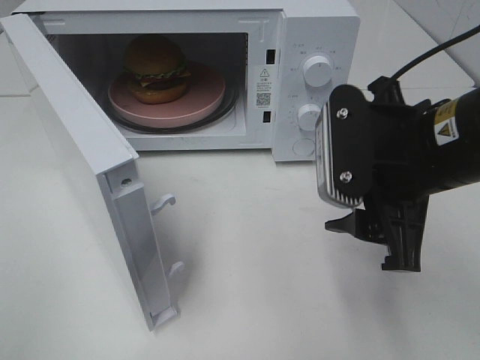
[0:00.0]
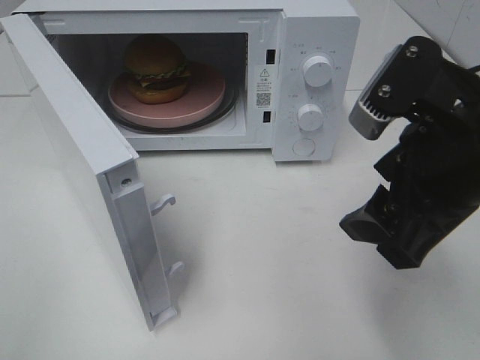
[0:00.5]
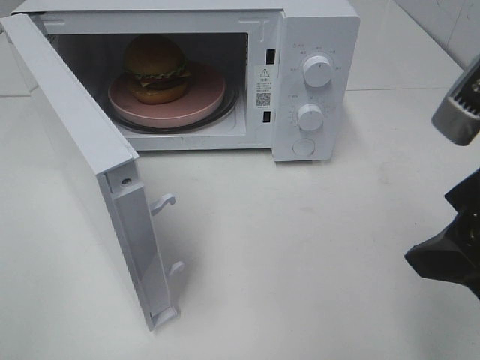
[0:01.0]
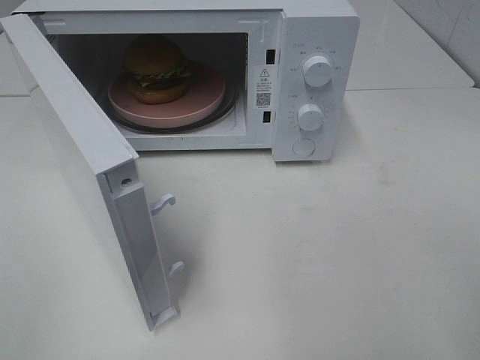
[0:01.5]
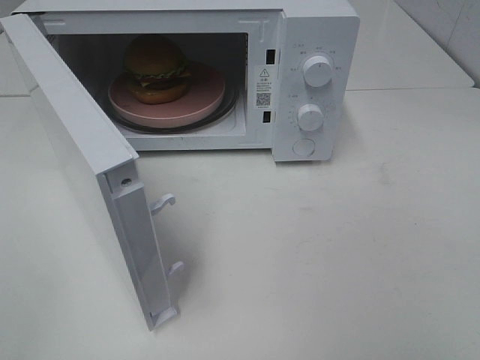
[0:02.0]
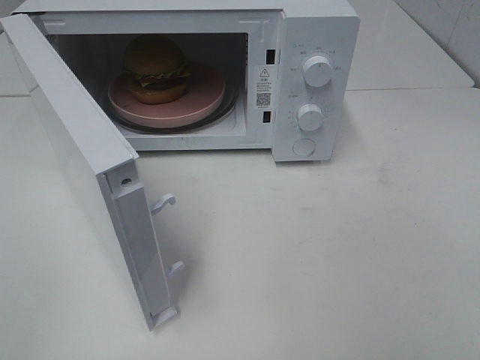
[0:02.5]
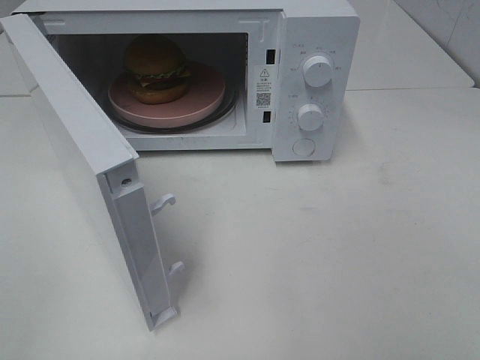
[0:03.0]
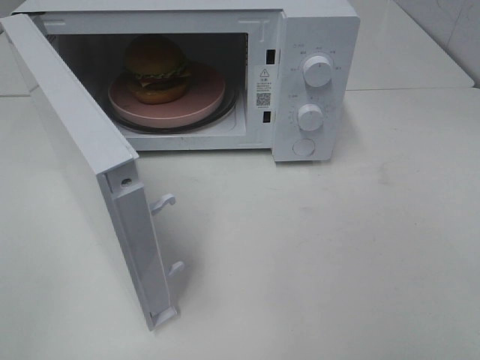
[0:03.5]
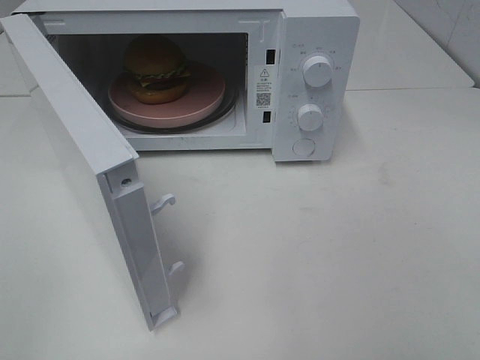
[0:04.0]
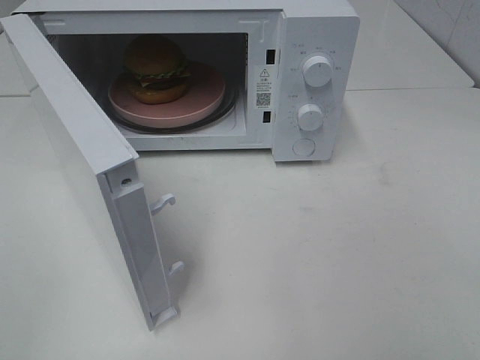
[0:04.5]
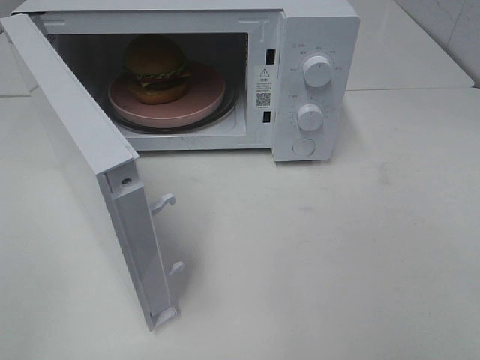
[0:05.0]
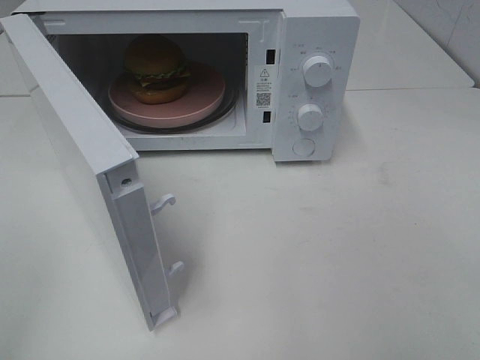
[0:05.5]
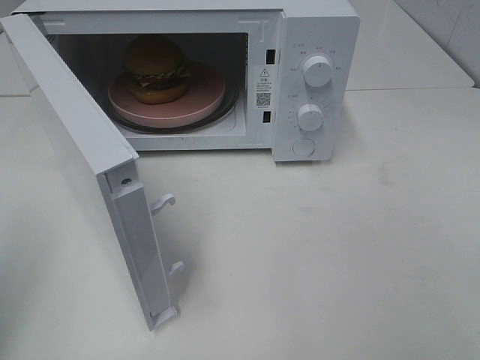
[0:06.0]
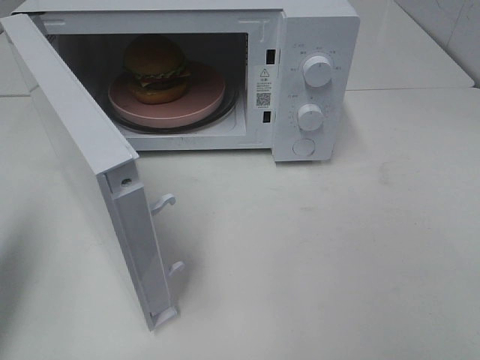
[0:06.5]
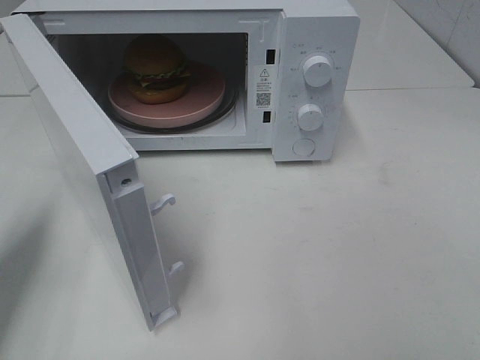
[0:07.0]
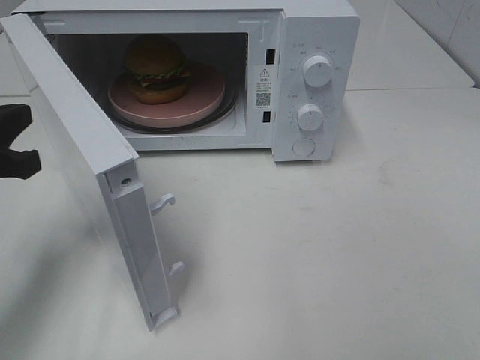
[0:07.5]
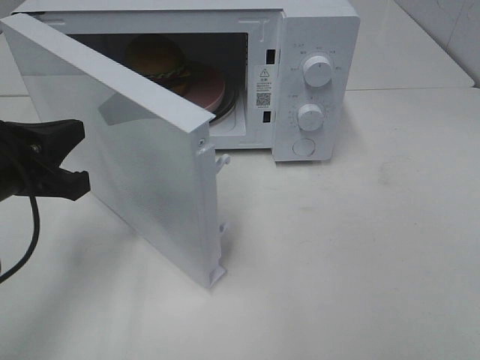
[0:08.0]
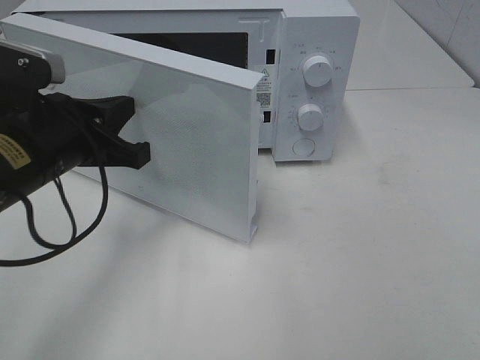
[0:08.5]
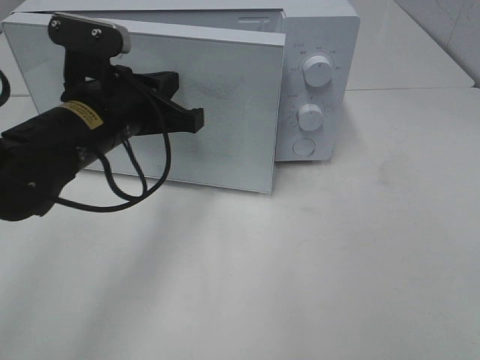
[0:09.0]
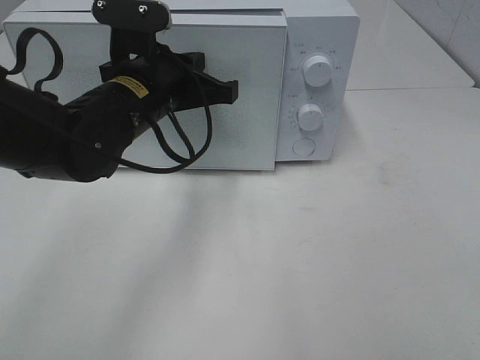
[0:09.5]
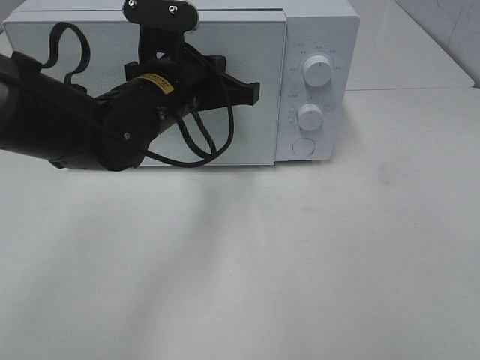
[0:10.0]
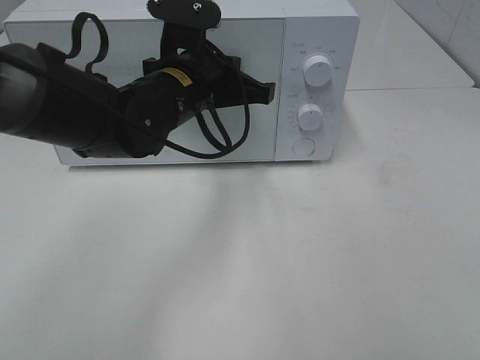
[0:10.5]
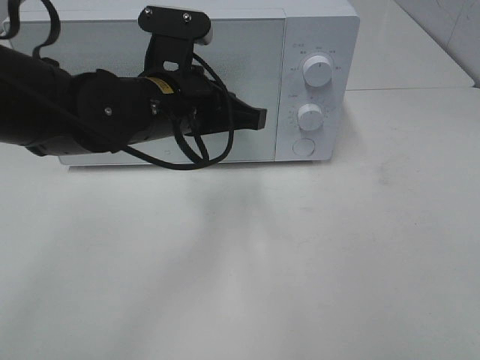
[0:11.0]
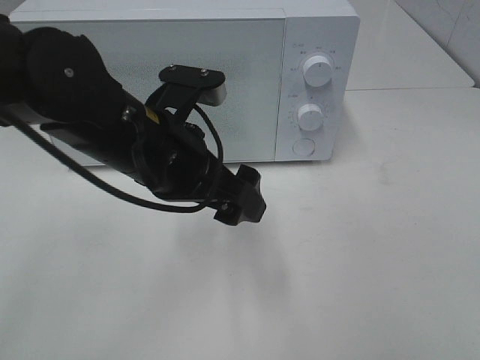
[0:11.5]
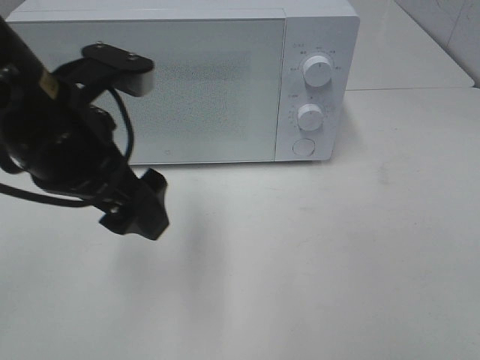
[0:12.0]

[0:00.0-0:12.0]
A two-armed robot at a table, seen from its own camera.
Task of the whole recording: Heat the burger.
Step, 0:00.0 to 0:11.0: Left hand: close the microwave door.
0:00.0 to 0:02.0: The right gripper moves backward, to the right and upward, roughly 20 cm.
0:06.0 to 0:08.0: The left gripper travels downward, forward and to the right by roughly 20 cm.
0:08.0 to 0:10.0: The left gripper heads to the right and forward, covering some 20 cm.
0:10.0 to 0:12.0: The left gripper shifts about 15 cm backward, to the left and upward, and opens up.

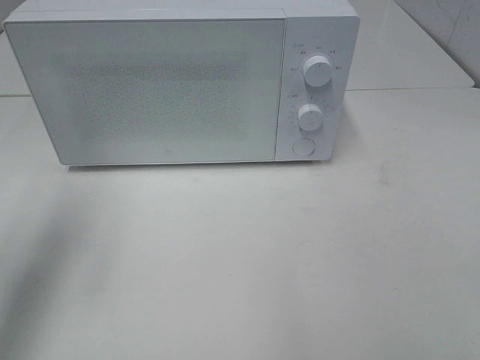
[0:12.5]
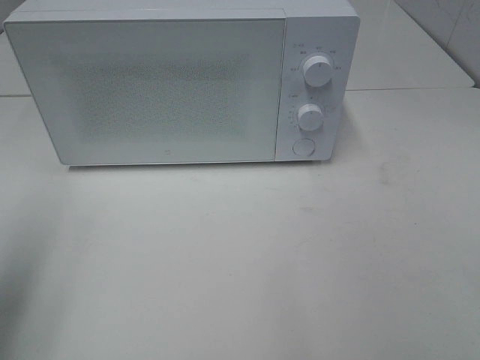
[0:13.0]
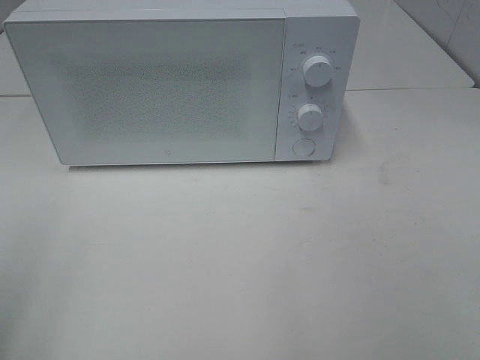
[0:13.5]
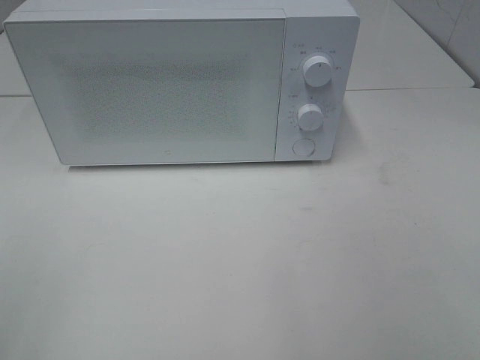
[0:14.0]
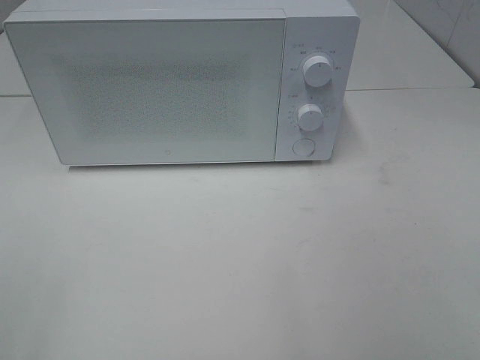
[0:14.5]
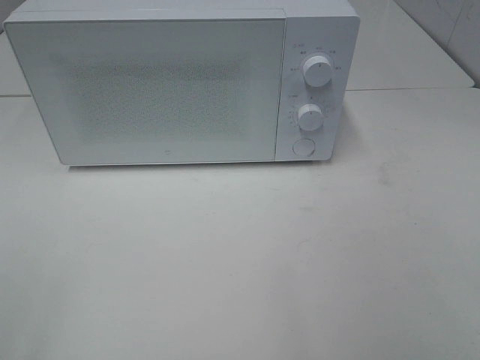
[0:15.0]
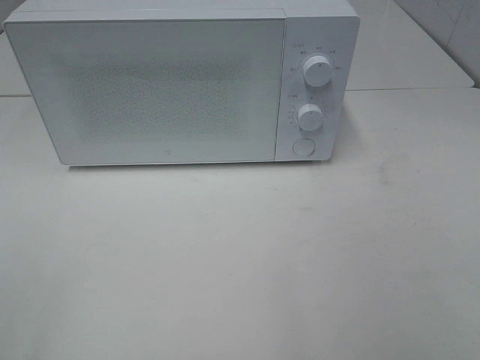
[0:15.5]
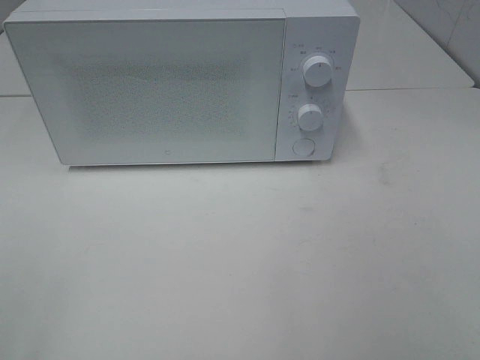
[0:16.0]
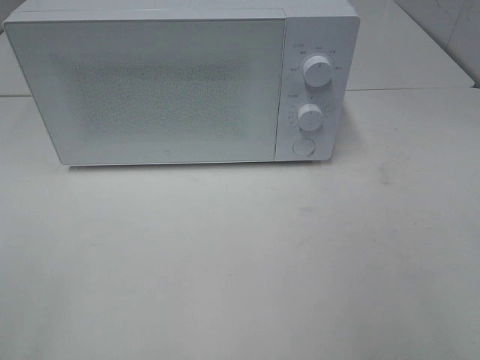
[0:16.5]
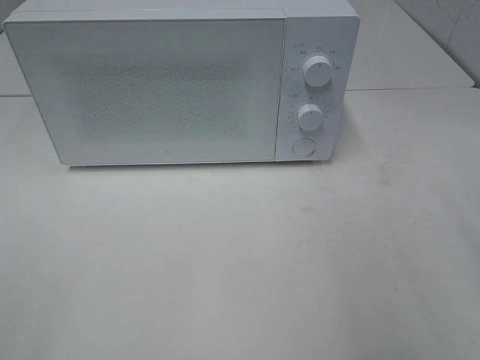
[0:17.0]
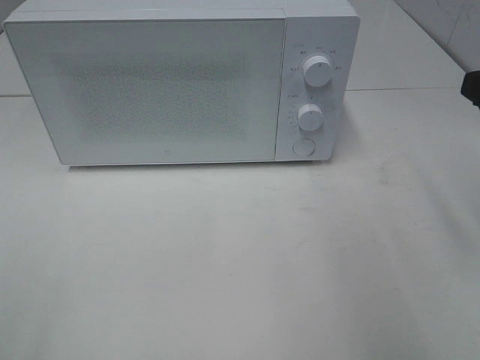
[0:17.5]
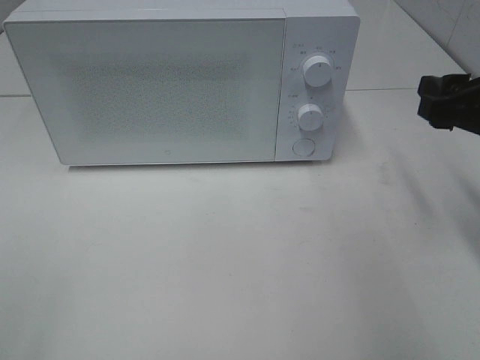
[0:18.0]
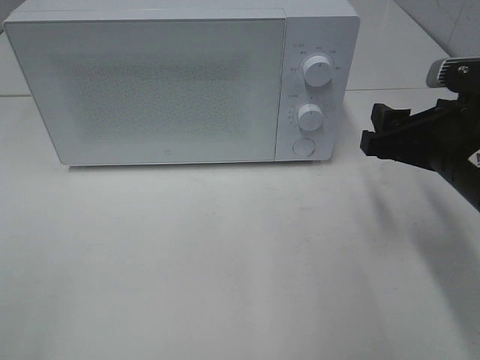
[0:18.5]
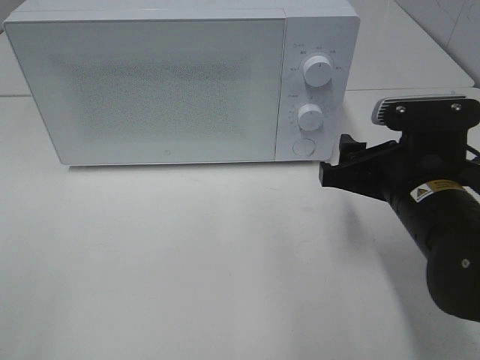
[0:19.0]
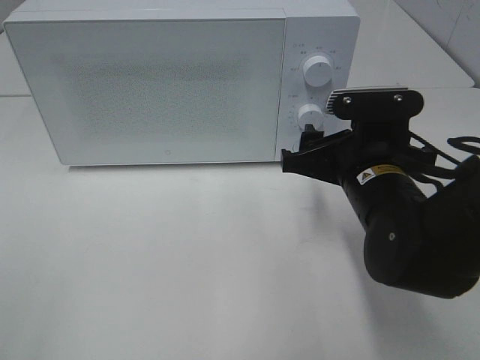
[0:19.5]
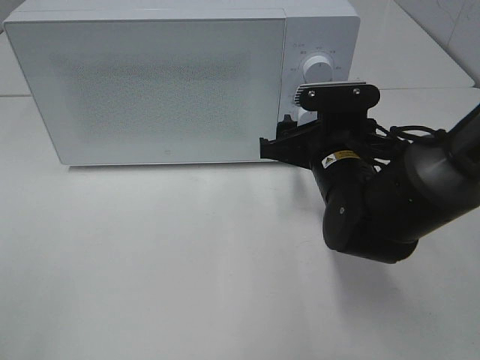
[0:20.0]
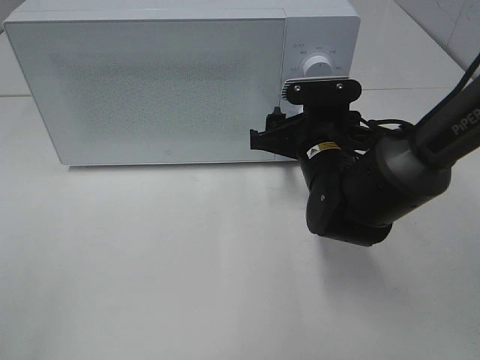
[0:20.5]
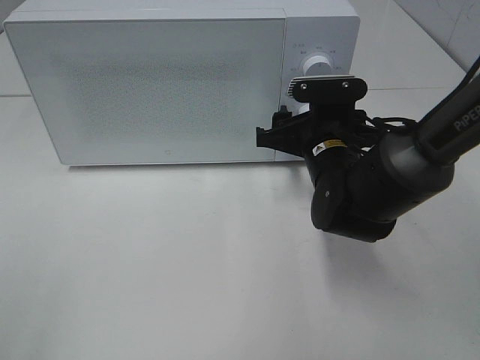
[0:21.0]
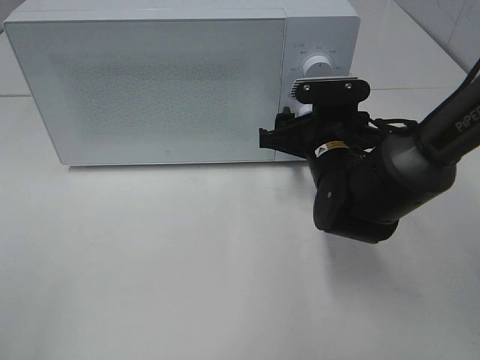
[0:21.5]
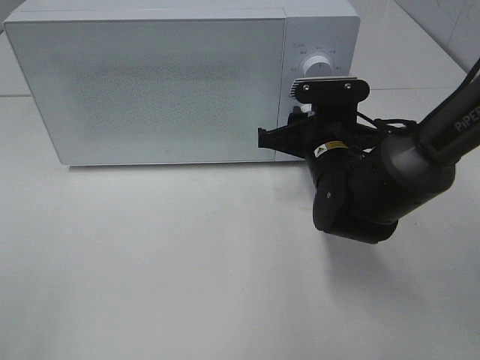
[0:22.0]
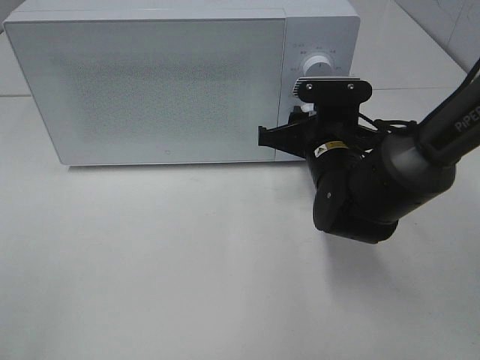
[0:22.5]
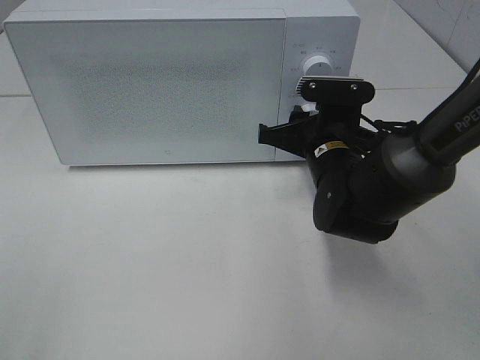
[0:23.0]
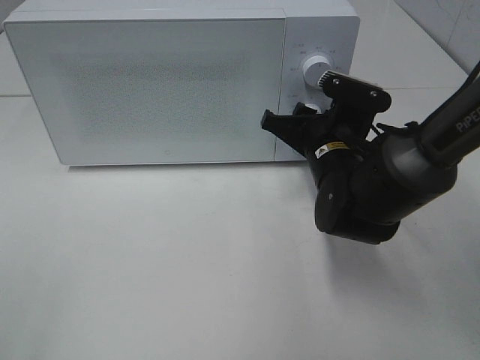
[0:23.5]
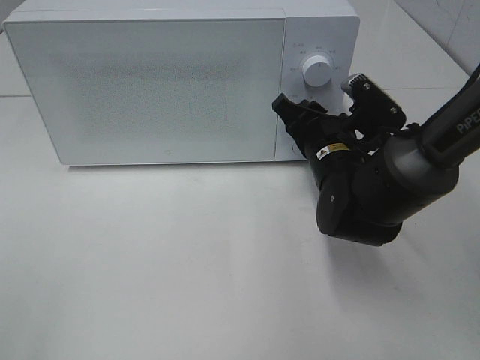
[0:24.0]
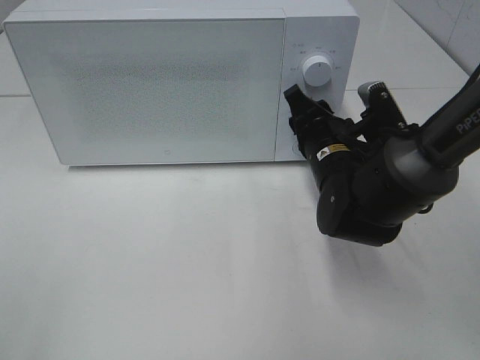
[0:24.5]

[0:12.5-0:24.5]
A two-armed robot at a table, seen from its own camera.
Task of the whole recording: Heat the burger.
0:12.5 to 0:14.5: The left gripper is displaced backward by approximately 25 cm.
0:16.5 to 0:18.5: The right gripper moves forward, downward and to the left, roughly 25 cm.
0:18.5 to 0:20.5: The right gripper shifts roughly 15 cm to the left, forward and downward.
0:20.5 to 0:22.5: The right gripper closes.

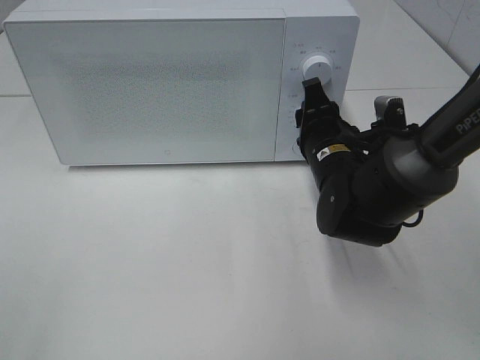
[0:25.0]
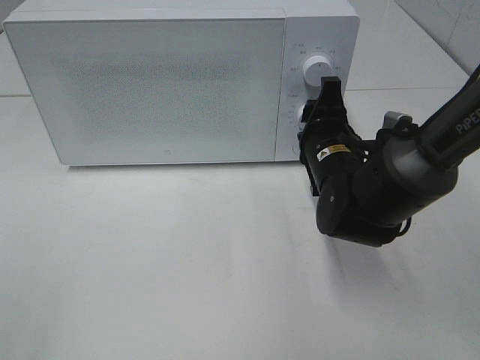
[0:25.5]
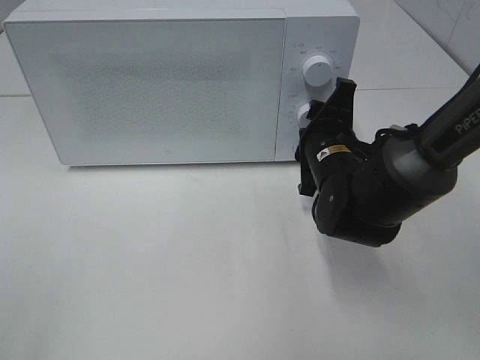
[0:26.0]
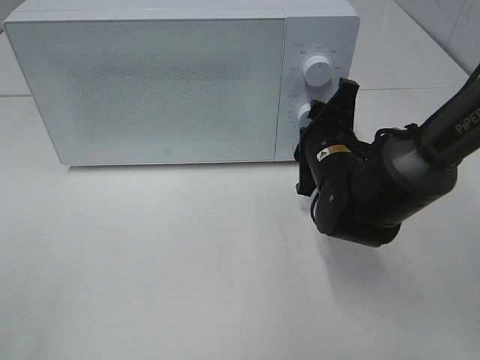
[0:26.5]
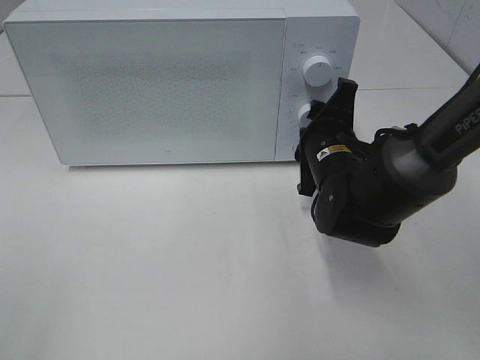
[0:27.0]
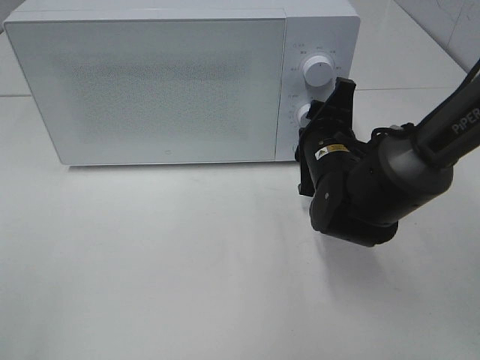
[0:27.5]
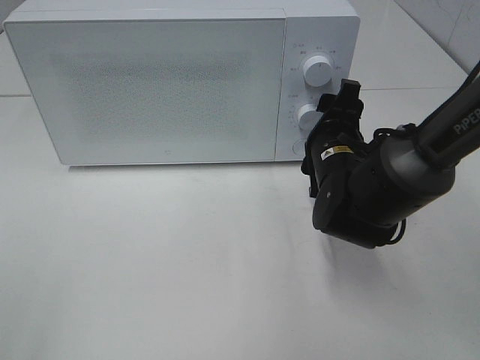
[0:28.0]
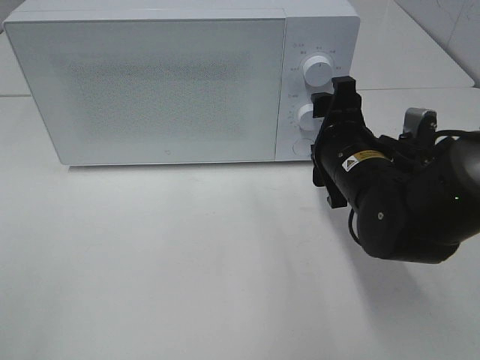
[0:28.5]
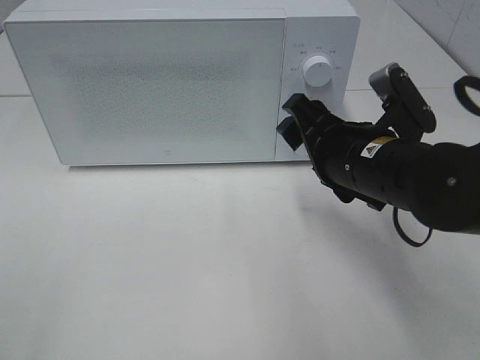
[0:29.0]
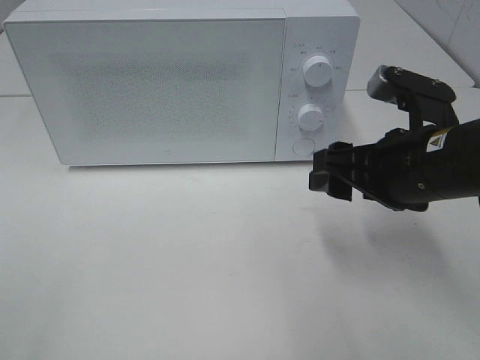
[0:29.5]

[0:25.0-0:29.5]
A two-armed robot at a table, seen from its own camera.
Task of the whole recording: Heat the burger.
Step, 0:25.0 to 0:28.0: Right hand: twist timer button.
0:27.0 to 0:29.5: The right gripper shifts about 15 cm backward, upward and to the right.
